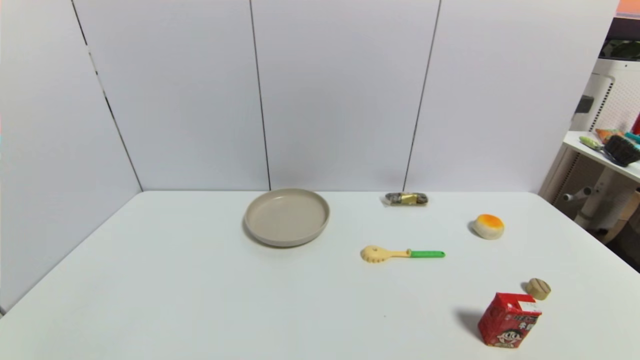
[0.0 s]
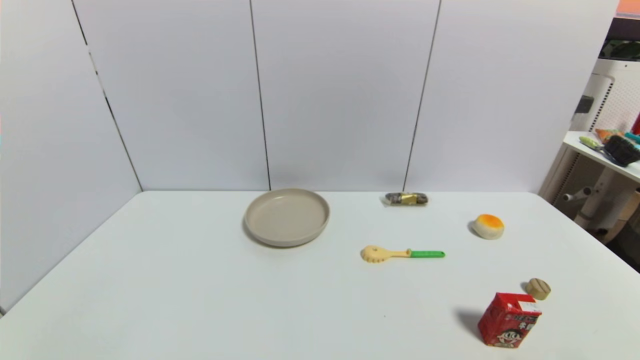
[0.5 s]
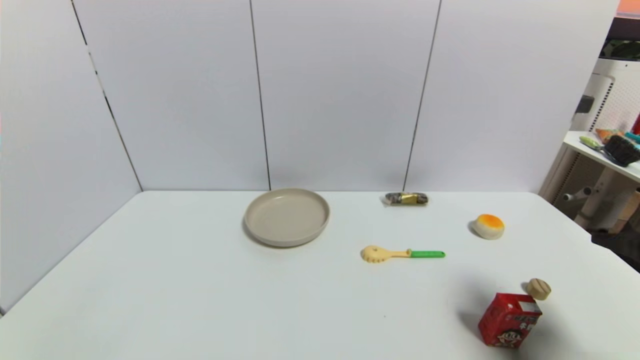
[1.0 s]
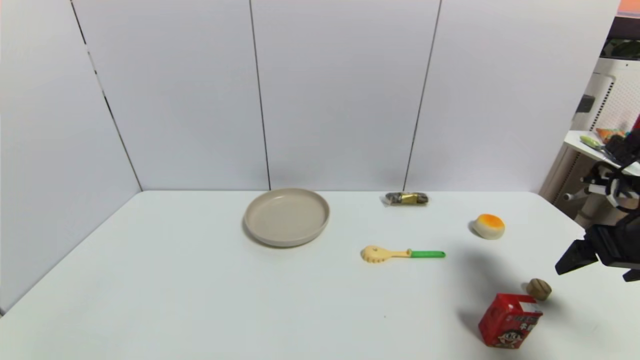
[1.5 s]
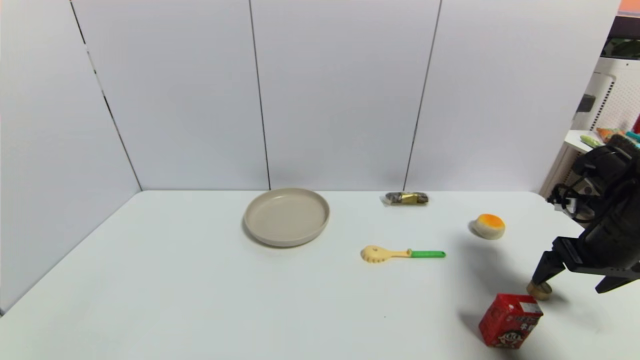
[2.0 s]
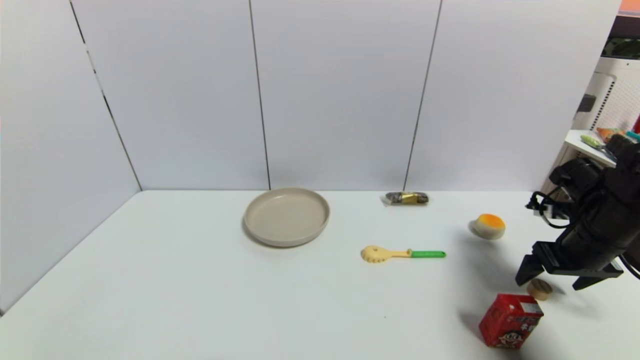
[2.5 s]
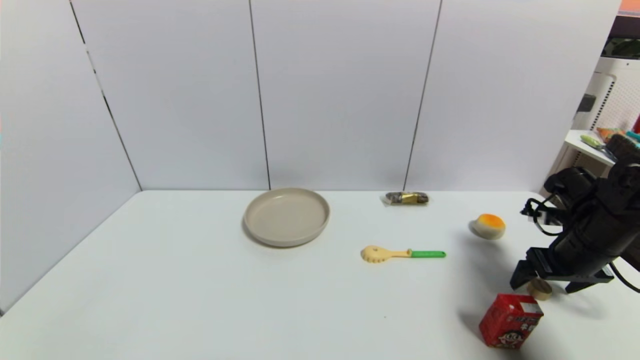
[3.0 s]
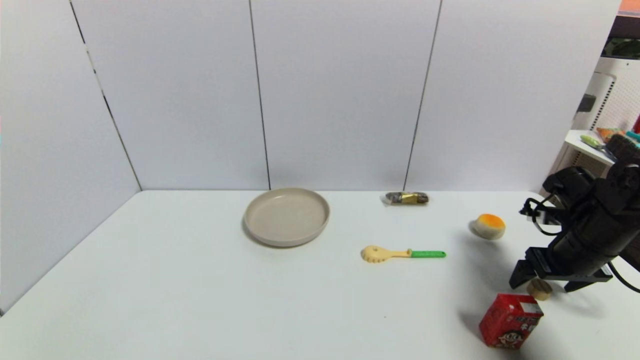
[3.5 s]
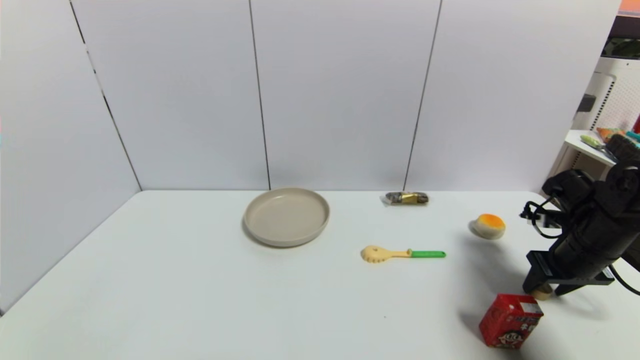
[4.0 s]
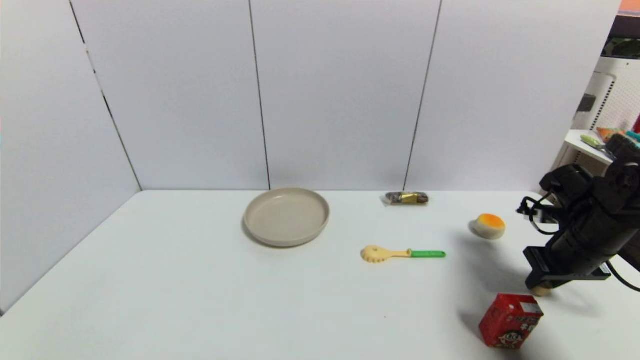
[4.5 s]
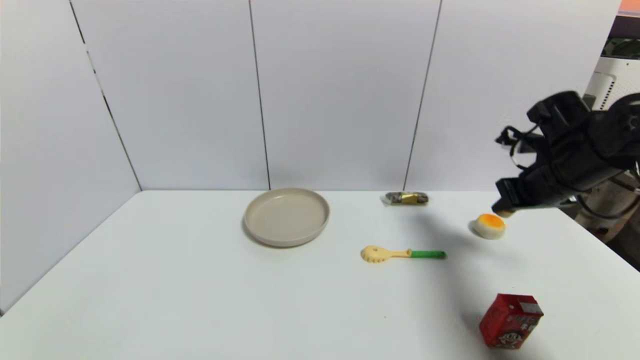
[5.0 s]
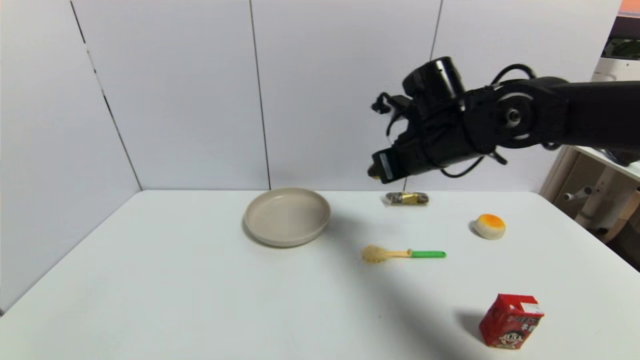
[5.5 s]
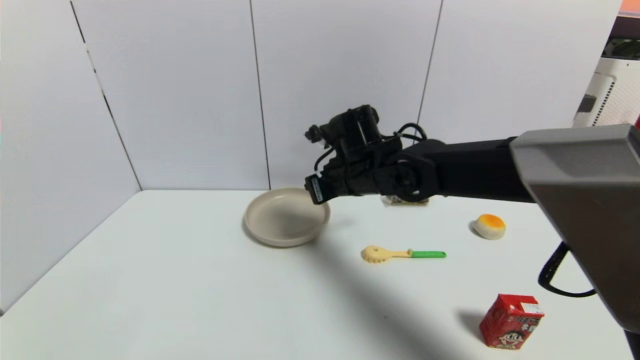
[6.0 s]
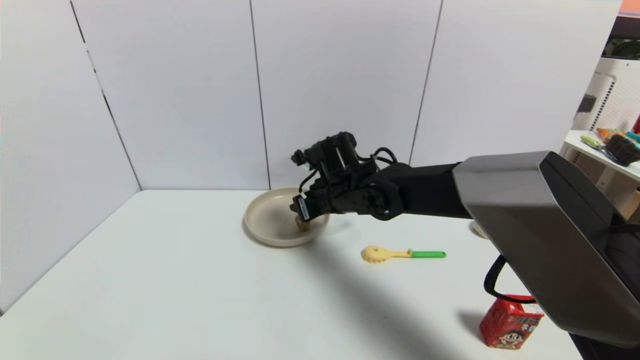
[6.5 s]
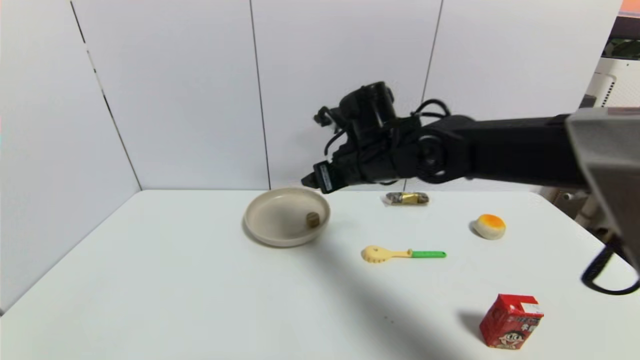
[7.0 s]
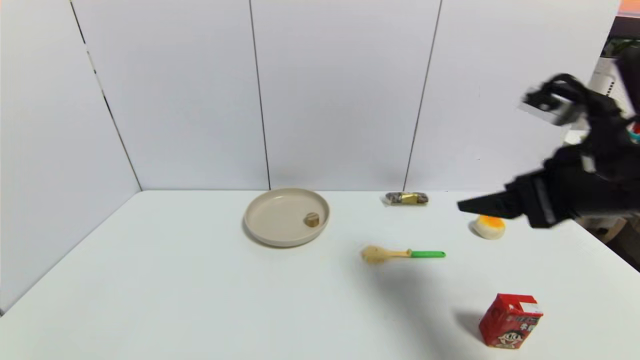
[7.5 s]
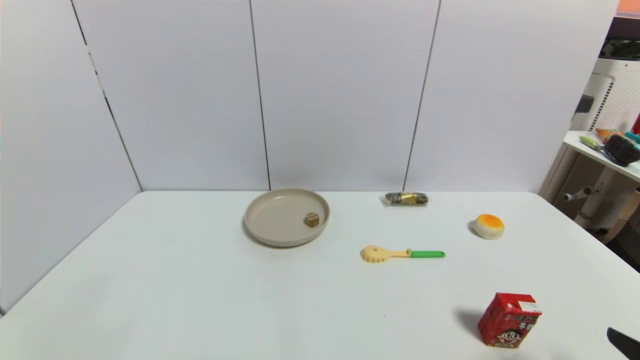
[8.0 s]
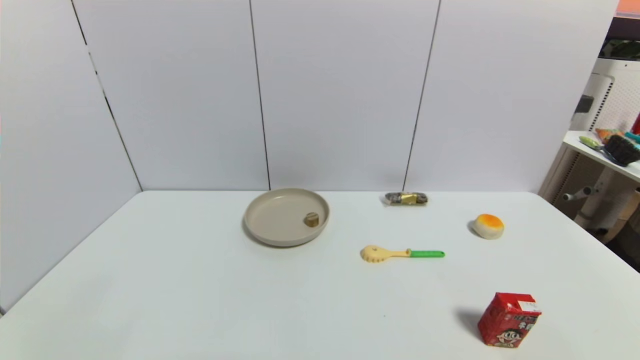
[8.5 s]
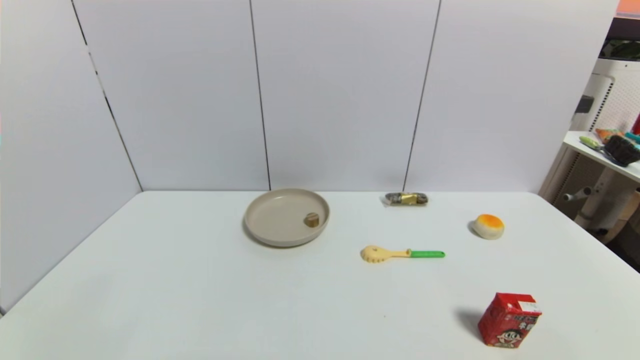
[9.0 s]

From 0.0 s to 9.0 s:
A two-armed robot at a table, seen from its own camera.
Task of the whole recording: use a gripper to pick the target object and place on the brown plate.
Step, from 0.0 s to 4.0 s: Grasp the round wooden block with the right gripper.
Step, from 4.5 s to 6.5 s: Place the round wooden block on the brown plate with the right gripper.
From 0.0 s to 2.0 s: The right gripper is displaced forward by some 30 cm.
From 2.0 s to 4.5 s: The right gripper moves some 5 cm, and closes up.
From 4.5 s to 7.0 s: The right gripper travels to the left by approximately 30 cm, and opens.
From 7.0 s to 9.0 s: The right gripper goes some 50 cm backward, to the right and downward.
